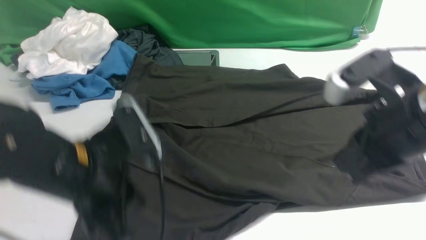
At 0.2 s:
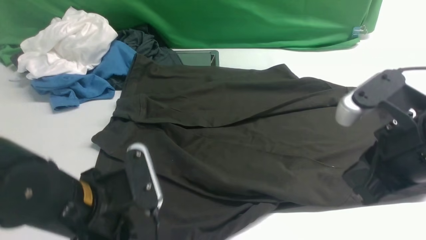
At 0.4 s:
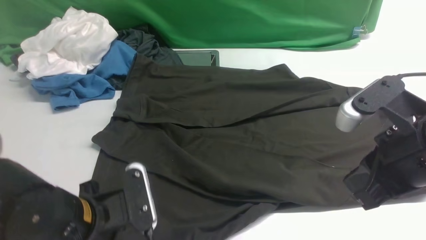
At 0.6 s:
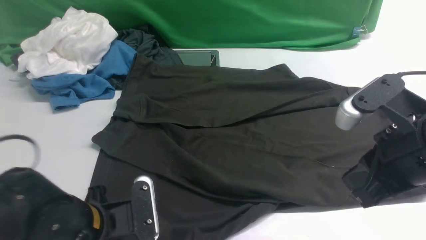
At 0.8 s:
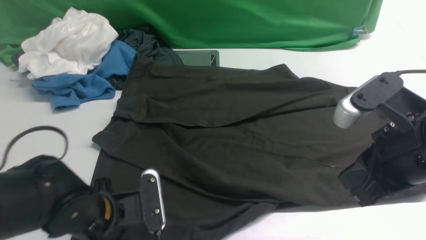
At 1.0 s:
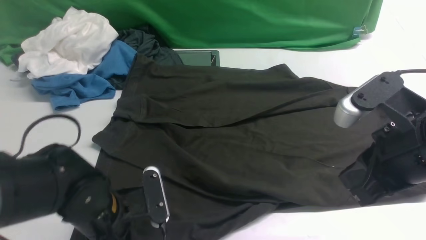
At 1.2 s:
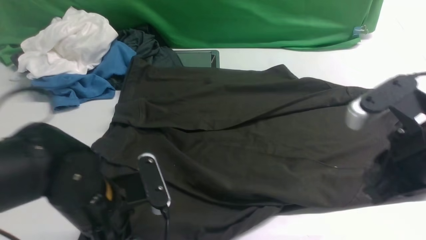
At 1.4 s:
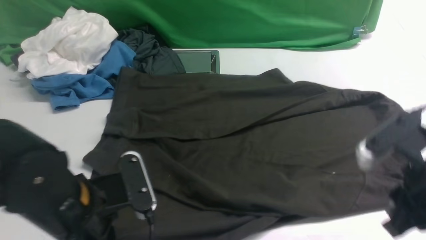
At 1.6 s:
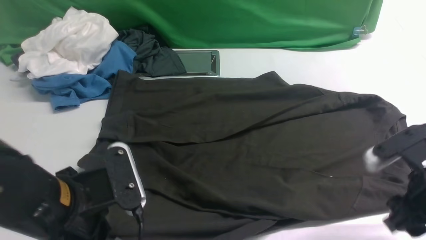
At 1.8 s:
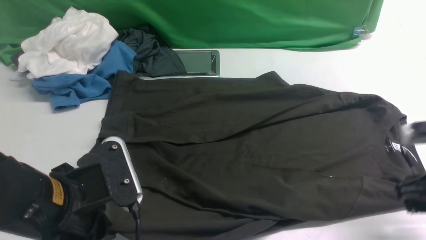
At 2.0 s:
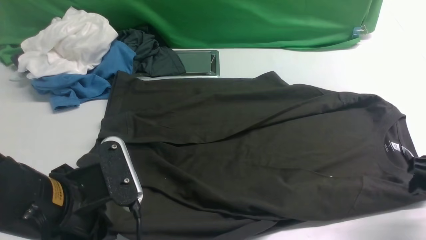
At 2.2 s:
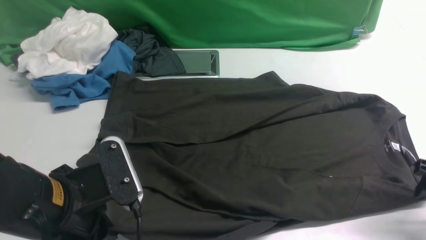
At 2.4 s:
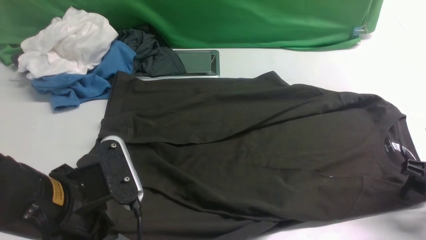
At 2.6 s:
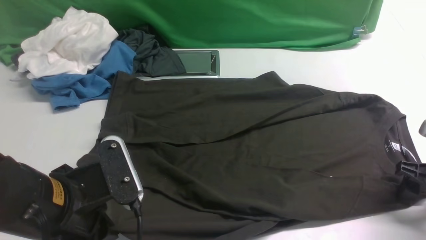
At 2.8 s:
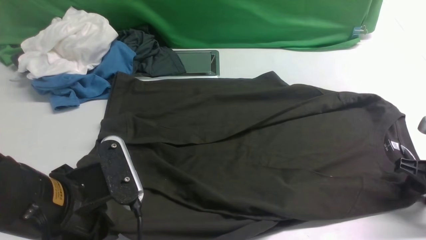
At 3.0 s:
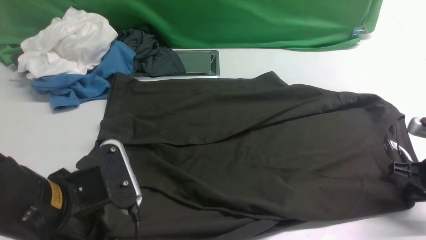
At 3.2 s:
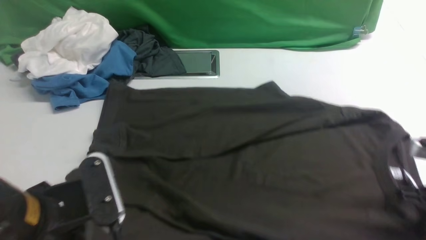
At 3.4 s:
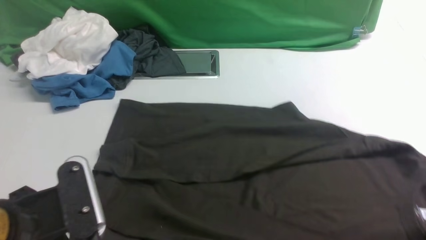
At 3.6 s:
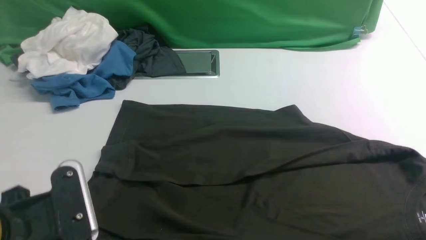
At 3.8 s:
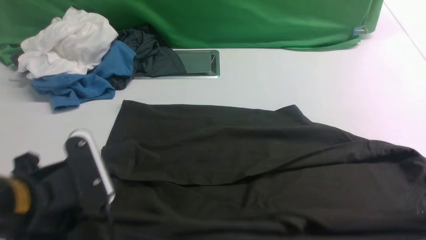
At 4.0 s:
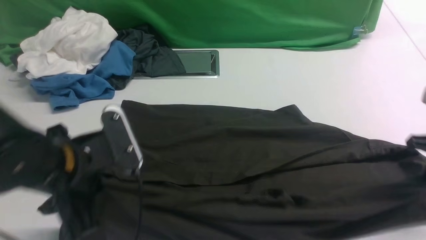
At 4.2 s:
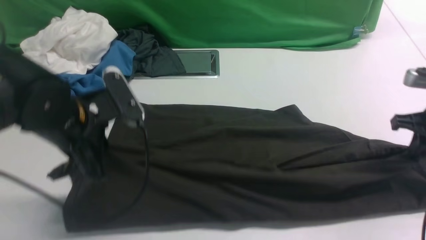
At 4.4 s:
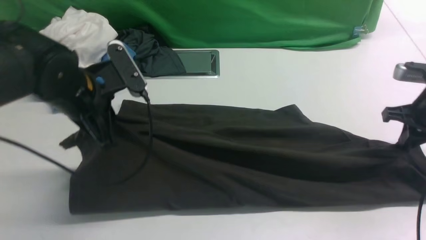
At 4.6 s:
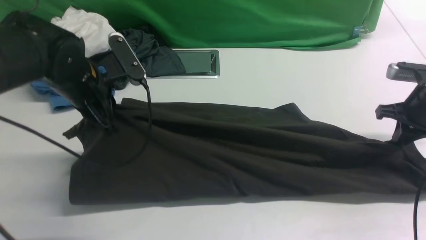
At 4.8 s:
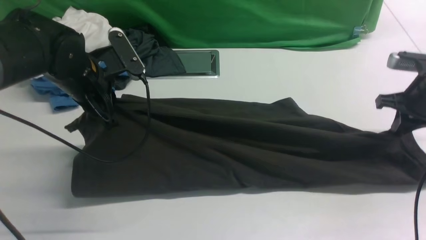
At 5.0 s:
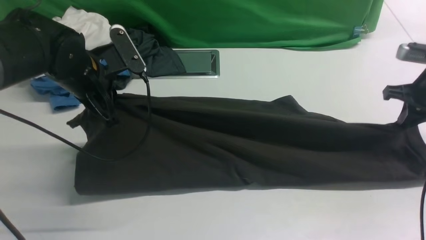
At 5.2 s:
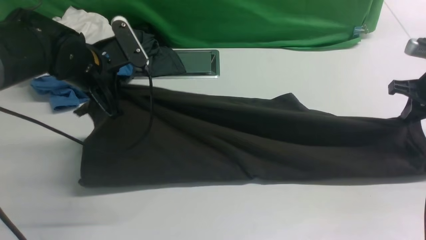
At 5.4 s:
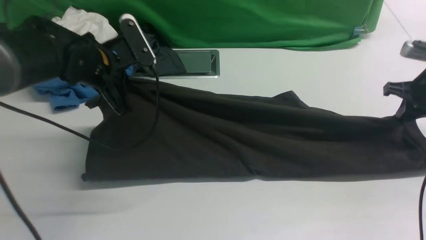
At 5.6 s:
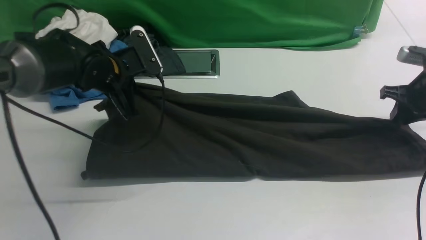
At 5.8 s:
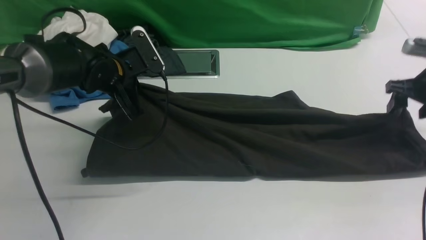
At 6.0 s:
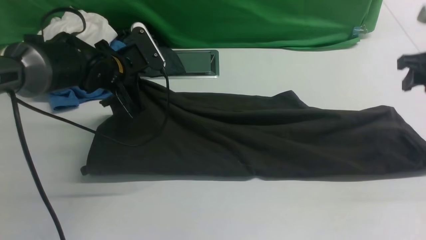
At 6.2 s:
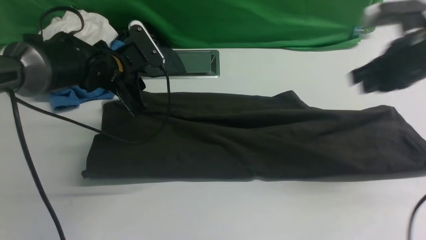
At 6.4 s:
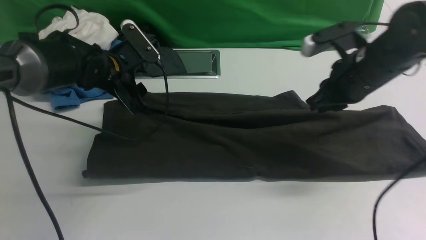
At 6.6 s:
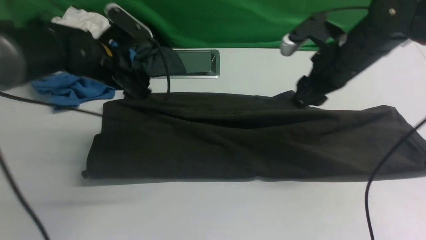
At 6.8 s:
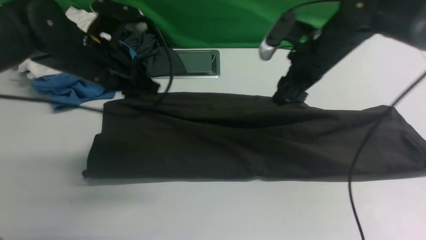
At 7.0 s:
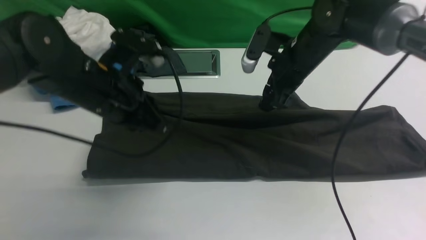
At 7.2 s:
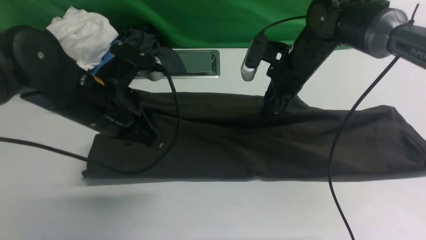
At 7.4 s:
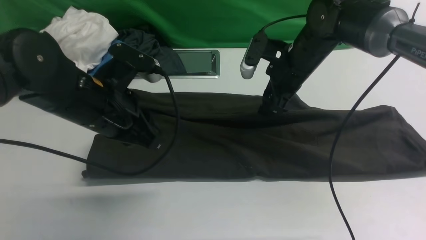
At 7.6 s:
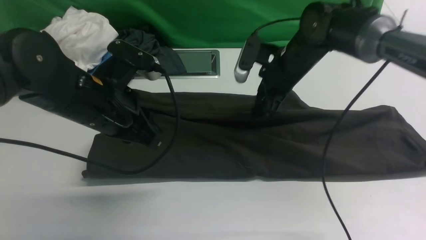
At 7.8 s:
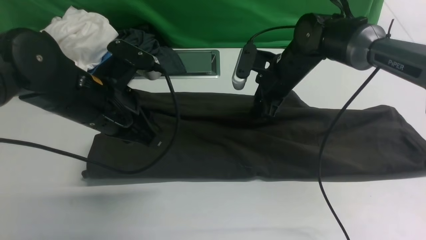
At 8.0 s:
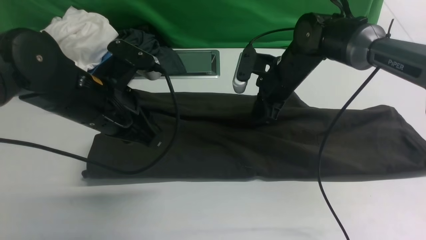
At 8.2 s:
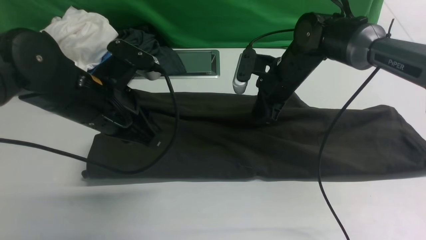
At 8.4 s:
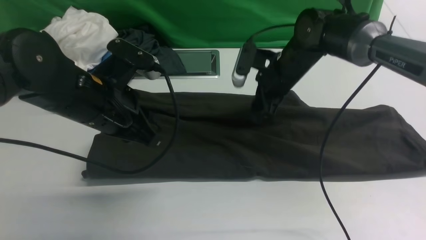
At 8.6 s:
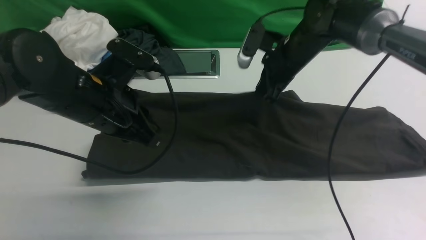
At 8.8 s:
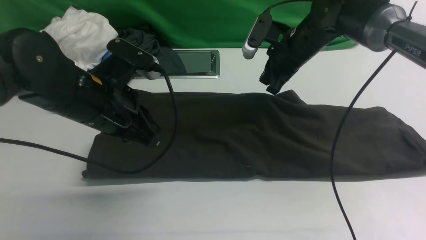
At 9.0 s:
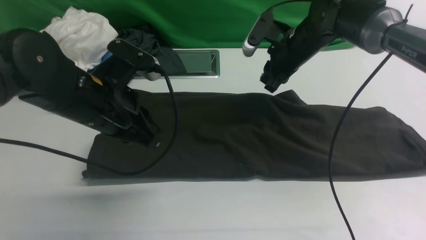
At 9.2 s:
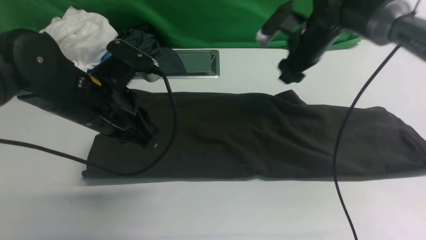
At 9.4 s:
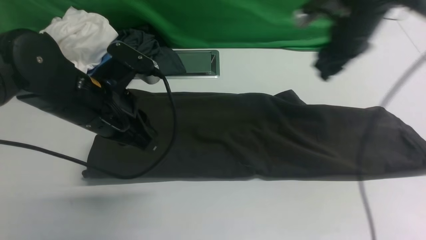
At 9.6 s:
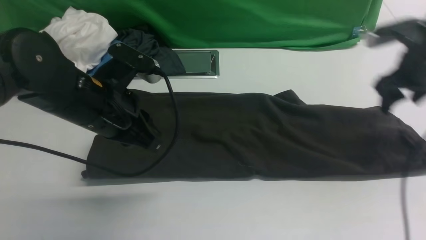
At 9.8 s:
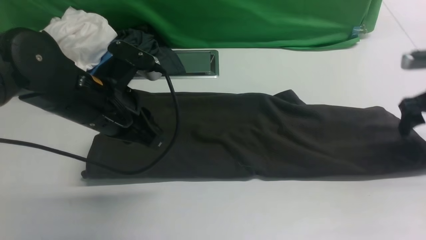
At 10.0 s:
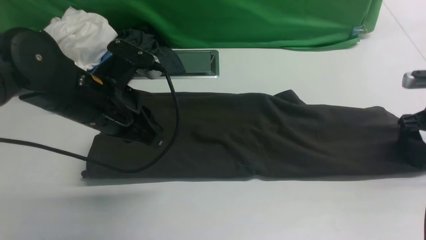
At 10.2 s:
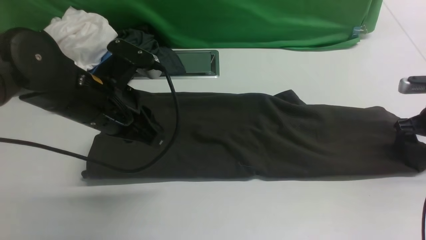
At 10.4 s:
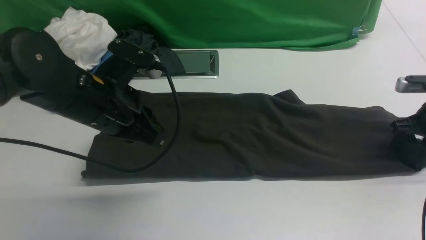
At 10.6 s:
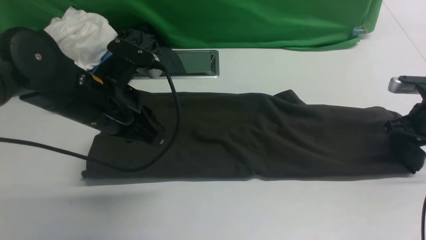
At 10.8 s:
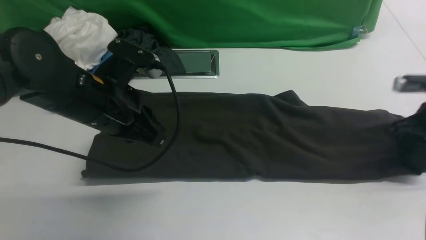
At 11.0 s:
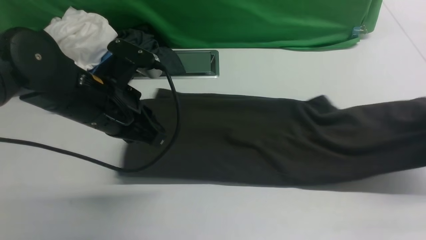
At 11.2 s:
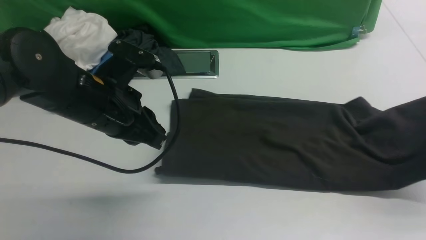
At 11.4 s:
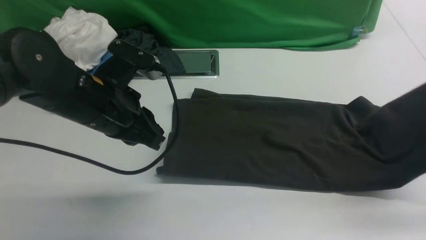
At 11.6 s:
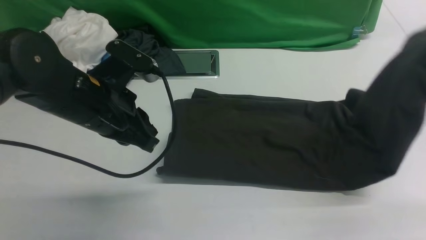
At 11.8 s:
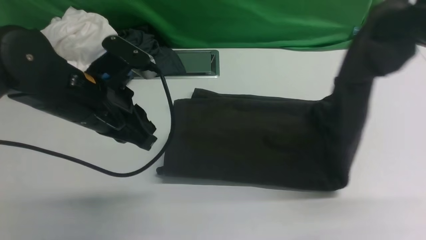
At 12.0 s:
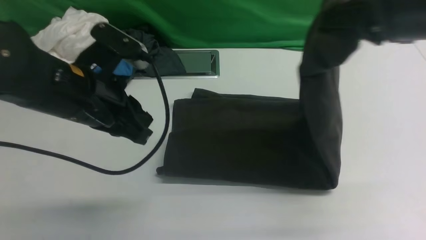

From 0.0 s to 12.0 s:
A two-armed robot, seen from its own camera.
Step, from 0.0 s to 3.6 s: use both arms simultaneously to clamp the lower edge of the clothing fabric.
Step, from 3.8 s to 9.2 s: use both arms to drag the lower edge of the fabric forward and fold it over the upper edge.
Step, from 9.4 s to 10.8 s: use the right arm to clamp the right edge of the fabric.
From 0.0 s to 1.6 s: The right gripper travels downward and to the right by about 10 cm, and opens its fingers, while the left gripper travels backward by approximately 5 cm, travels downward and back again, roughly 10 cm each way, and opens, then closes once more.
From 1.6 s to 3.0 s: The right gripper shifts approximately 15 cm to the right, downward and forward.
From 3.0 s to 4.4 s: The left gripper moves forward, approximately 15 cm. The right gripper goes roughly 10 cm forward and upward.
From 4.4 s to 6.0 s: The left gripper is displaced forward and downward by about 15 cm. The right gripper changes place by roughly 5 cm, and opens up.
From 6.0 s to 7.6 s: The right gripper goes roughly 20 cm to the left, and closes, then reopens, while the left gripper shifts approximately 15 cm backward and upward, and opens and closes again.
From 7.6 s to 9.0 s: The right gripper closes its fingers.
From 9.0 s to 10.4 s: The right gripper goes approximately 25 cm to the right and backward, and opens its fingers.
From 10.4 s to 12.0 s: The right gripper moves upward and to the left, roughly 25 cm, and closes its fingers.

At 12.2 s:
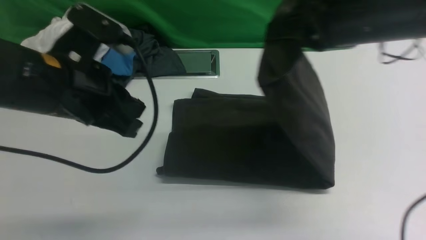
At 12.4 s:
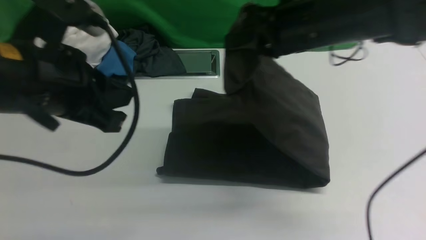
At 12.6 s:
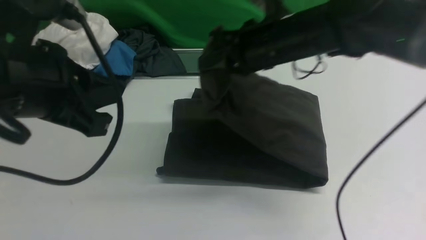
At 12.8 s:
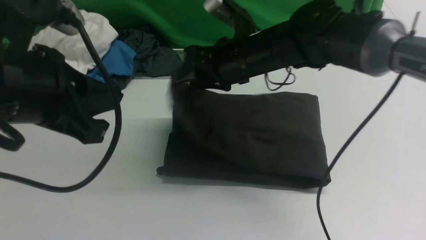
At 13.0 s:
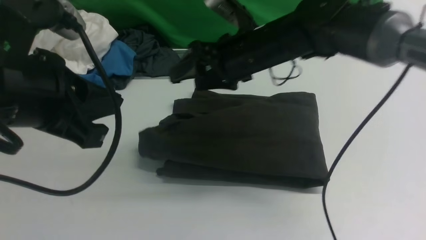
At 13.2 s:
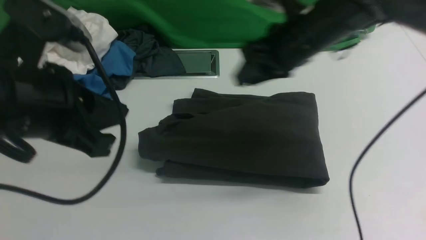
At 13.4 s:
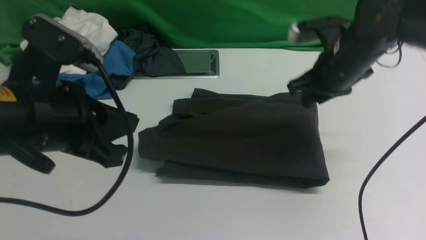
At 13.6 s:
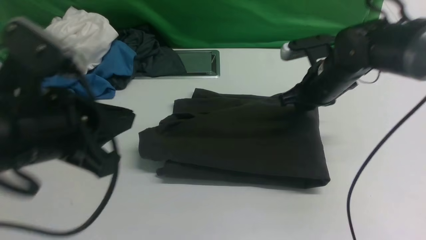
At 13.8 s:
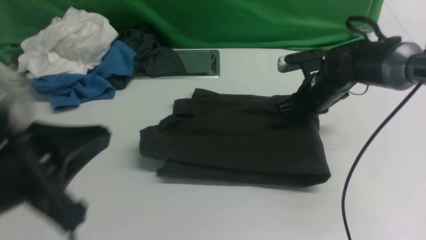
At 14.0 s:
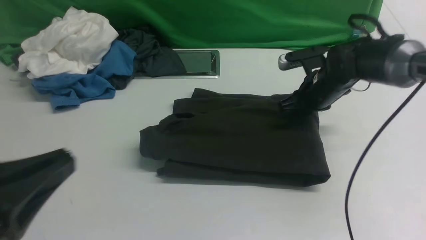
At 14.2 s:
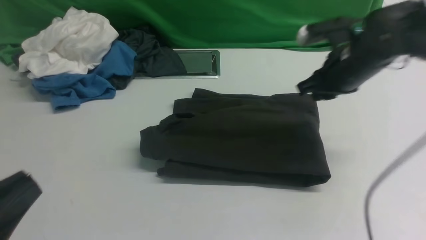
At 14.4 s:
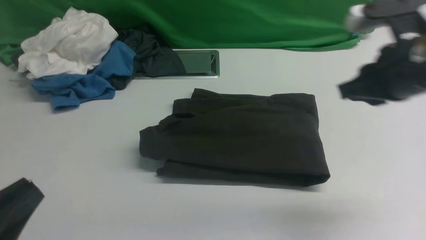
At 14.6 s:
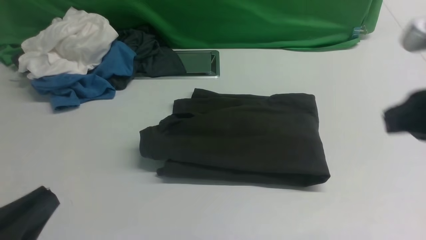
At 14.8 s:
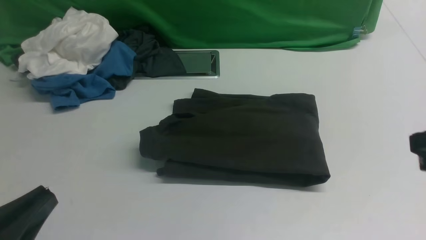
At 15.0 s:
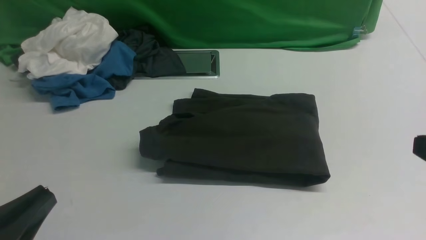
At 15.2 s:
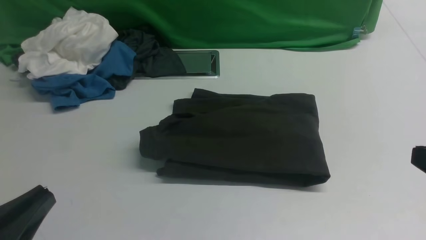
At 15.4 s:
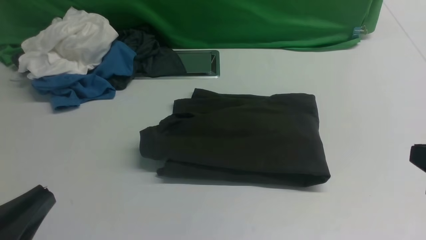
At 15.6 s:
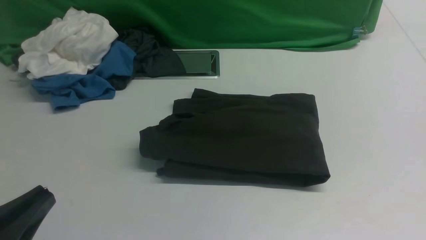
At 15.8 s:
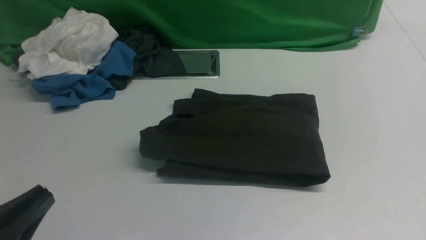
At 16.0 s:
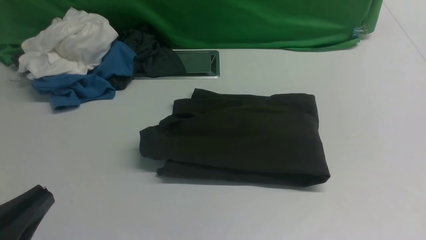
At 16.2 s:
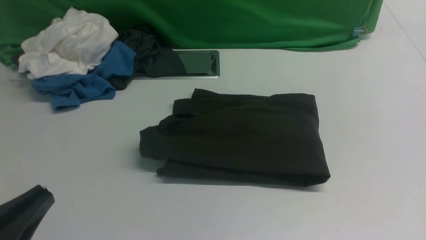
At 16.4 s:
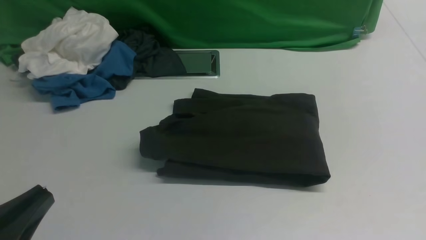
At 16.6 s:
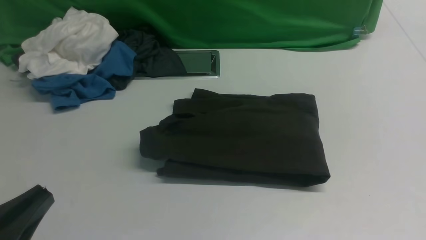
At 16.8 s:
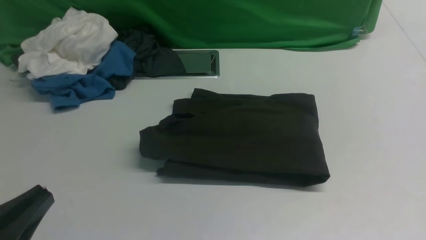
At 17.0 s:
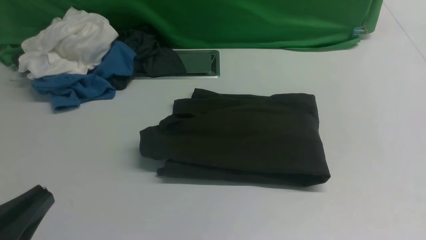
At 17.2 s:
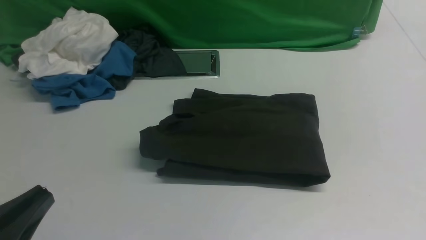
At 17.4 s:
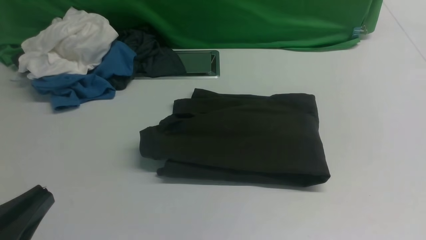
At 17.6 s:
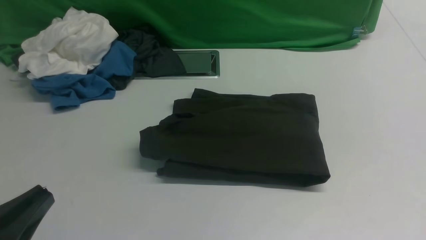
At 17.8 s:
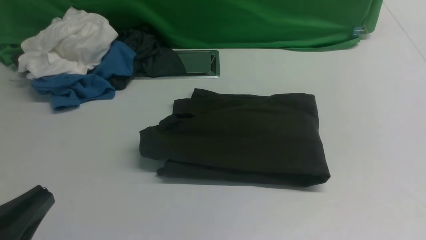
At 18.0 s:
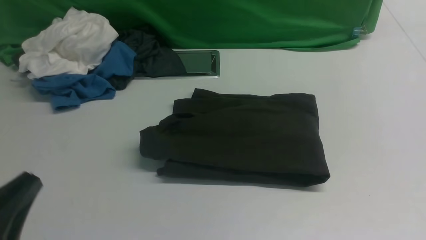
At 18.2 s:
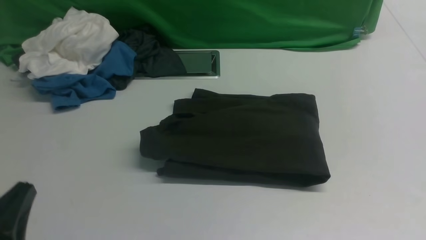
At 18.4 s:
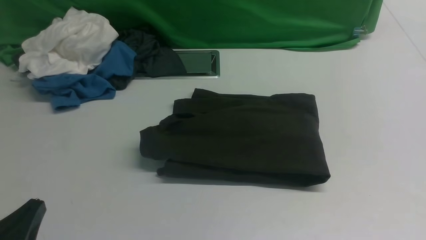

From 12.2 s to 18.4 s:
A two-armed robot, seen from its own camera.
From 12.2 s to 13.8 s: The left gripper goes some 10 cm backward. The right gripper goes some 20 cm downward and forward, and opens, then closes once more.
From 13.8 s to 15.4 s: The left gripper goes roughly 10 cm backward and downward, while the right gripper heads backward and upward, covering some 30 cm.
From 16.8 s to 18.4 s: The left gripper is displaced downward by approximately 5 cm.
